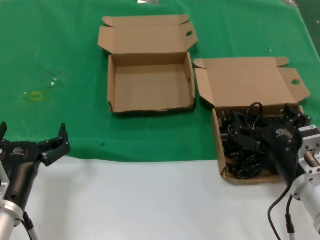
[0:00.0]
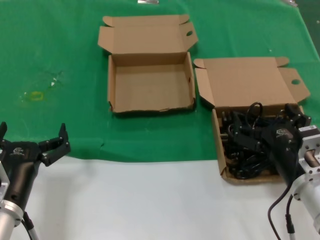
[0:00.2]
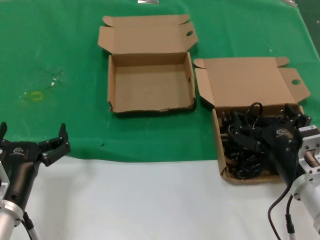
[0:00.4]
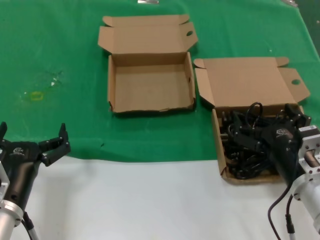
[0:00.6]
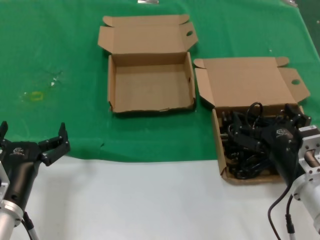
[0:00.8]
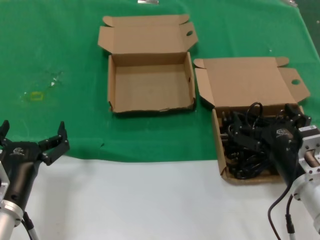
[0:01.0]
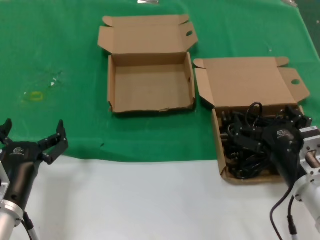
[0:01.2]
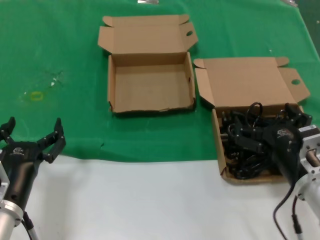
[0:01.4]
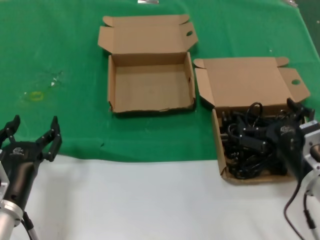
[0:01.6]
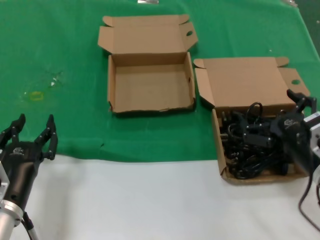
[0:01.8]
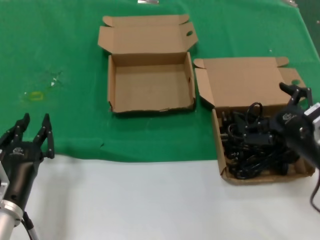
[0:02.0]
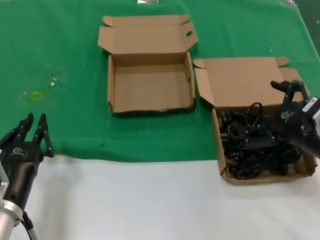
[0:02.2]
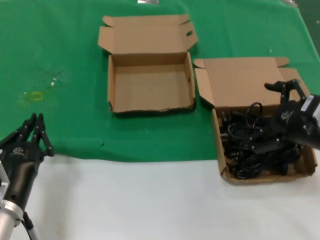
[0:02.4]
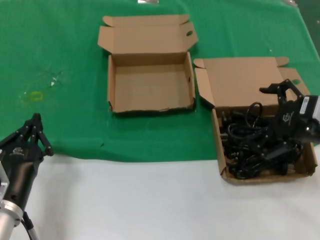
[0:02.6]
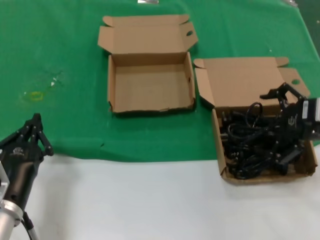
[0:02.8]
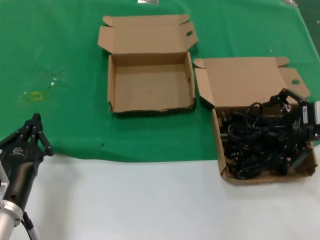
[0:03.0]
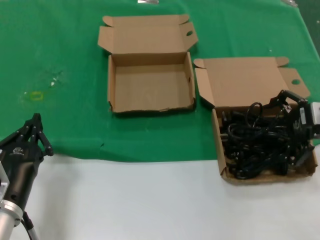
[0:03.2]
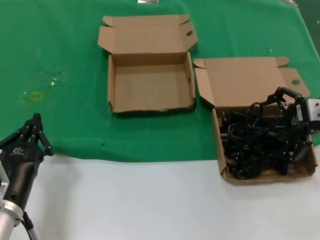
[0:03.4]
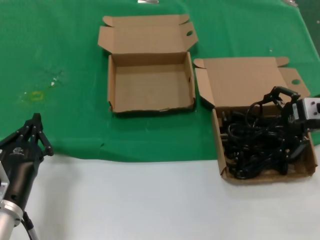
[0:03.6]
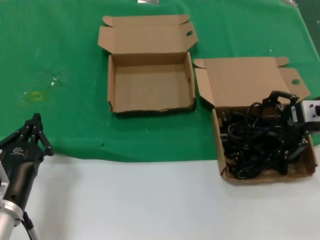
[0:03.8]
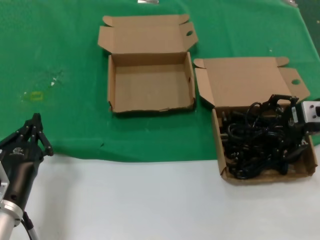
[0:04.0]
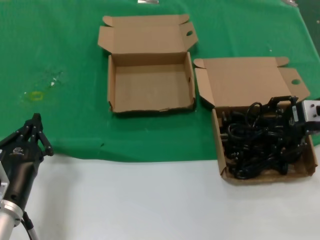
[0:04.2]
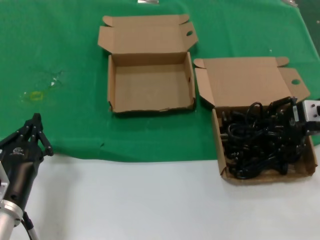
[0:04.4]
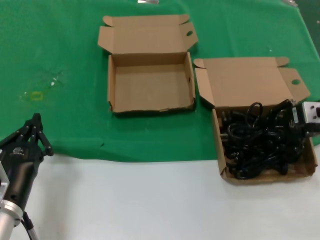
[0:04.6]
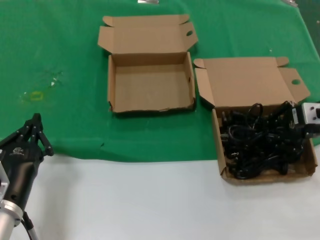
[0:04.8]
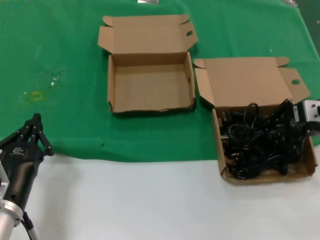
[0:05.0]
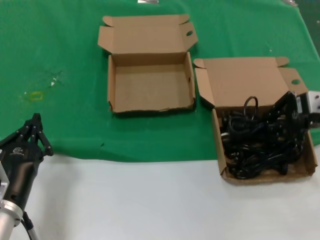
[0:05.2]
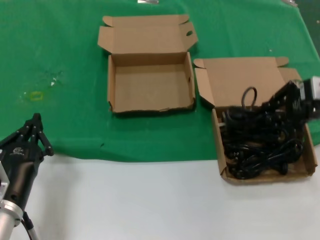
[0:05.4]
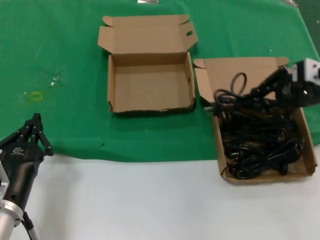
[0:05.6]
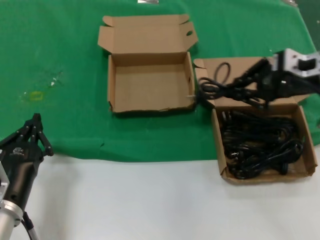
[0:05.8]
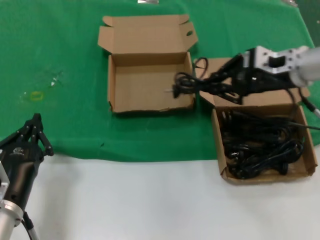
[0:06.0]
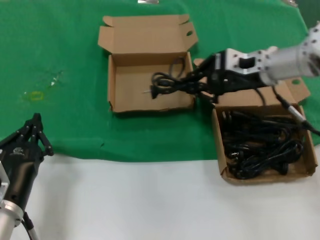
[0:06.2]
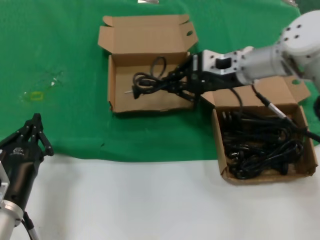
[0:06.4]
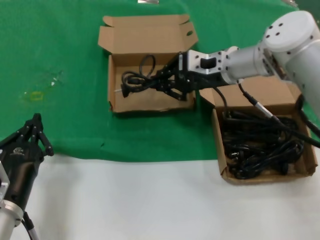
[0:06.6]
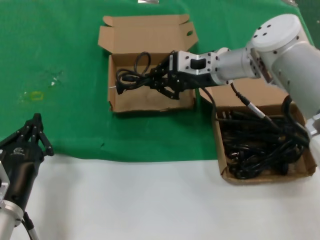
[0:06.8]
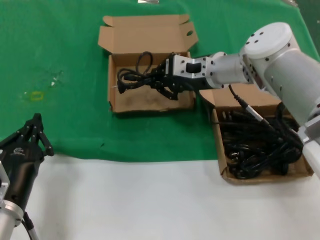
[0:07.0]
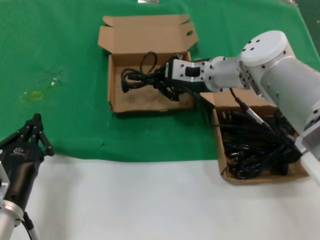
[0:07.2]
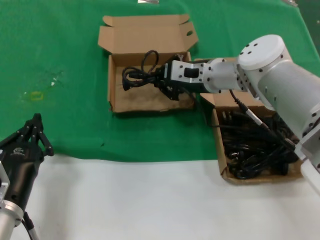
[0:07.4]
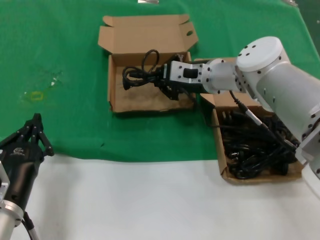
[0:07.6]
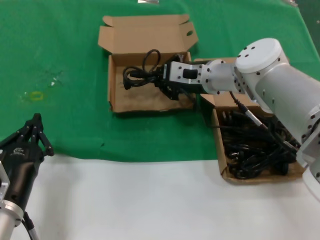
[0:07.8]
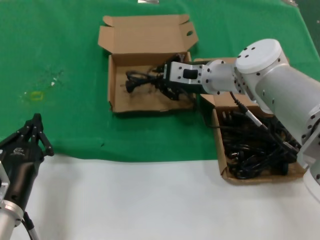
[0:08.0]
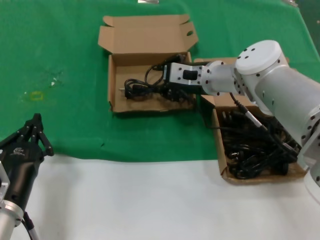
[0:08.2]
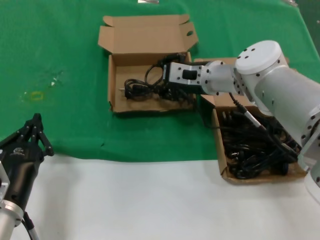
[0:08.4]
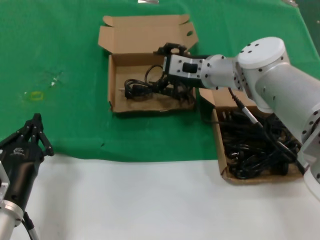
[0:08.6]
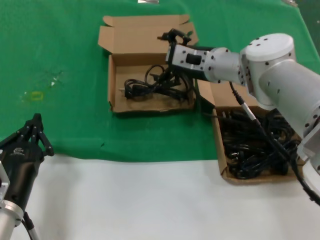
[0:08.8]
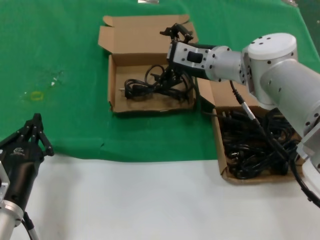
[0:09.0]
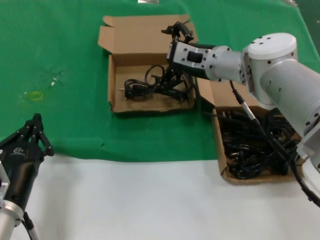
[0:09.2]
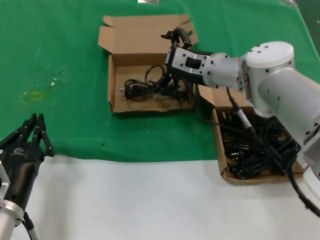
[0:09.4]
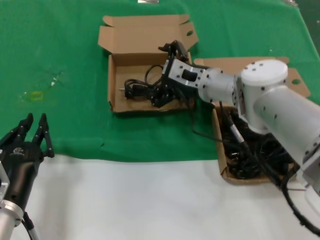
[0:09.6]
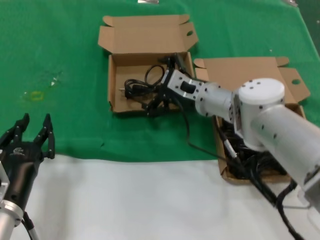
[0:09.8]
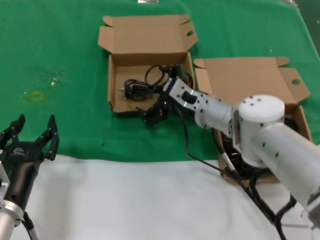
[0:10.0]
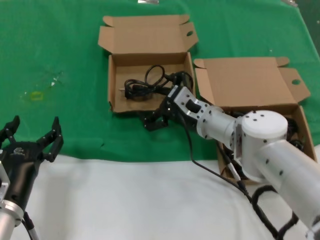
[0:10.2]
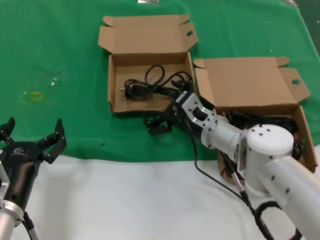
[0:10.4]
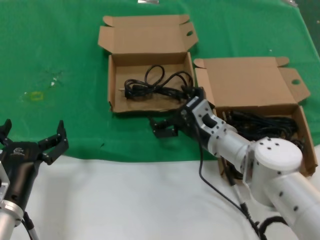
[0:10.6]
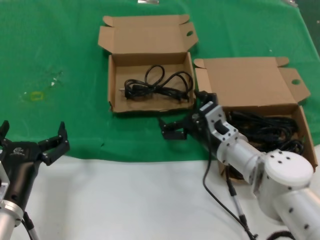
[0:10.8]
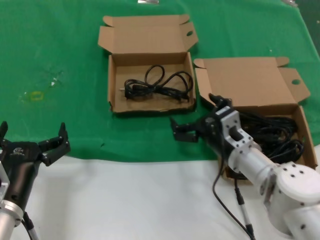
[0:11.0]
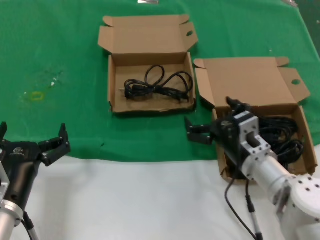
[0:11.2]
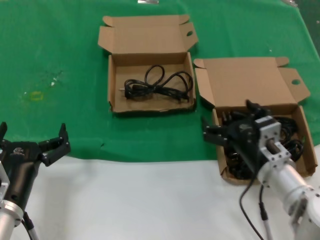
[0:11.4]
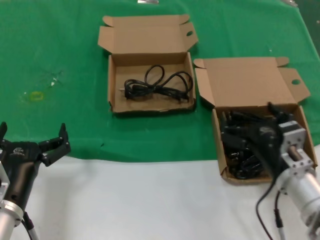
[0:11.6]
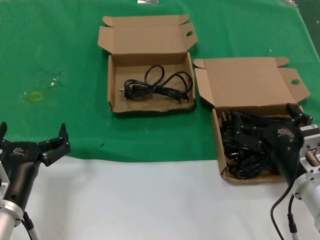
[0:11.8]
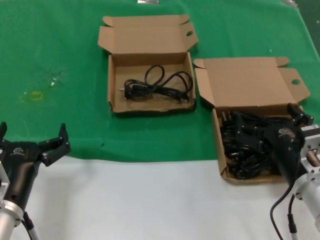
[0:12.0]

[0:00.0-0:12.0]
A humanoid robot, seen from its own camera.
Task of the whole recording: take the parts from the box containing them and put them into an empty box.
Step, 0:00.0 to 0:05.0: Grasp the data cable.
Step, 0:05.2 to 0:08.0: Place the data cable in the another box.
0:00.0 to 0:01.6: The hands move only a little.
0:01.6 to 0:03.0: The right hand is displaced upward, to the right and forward by approximately 20 cm.
0:03.0 to 0:04.4: The hands make only small movements.
0:04.4 to 0:06.0: The right hand heads to the left and upward, covering about 10 cm.
0:06.0 to 0:07.6: The right hand shifts approximately 15 cm to the left and downward.
0:07.6 to 0:09.0: The hands make only small movements.
0:09.0 to 0:10.4: The right hand heads downward and backward, covering some 15 cm.
0:10.4 to 0:12.0: The right hand shifts roughly 20 cm backward and to the right.

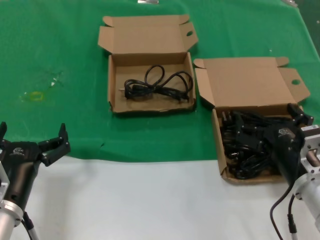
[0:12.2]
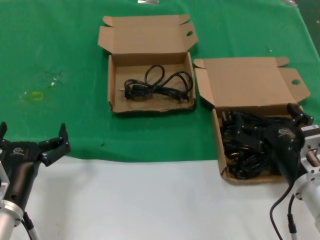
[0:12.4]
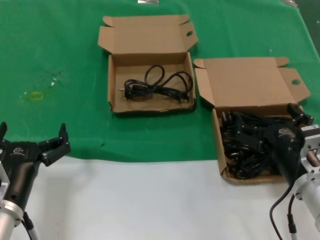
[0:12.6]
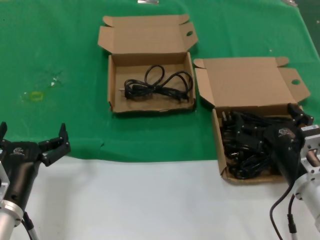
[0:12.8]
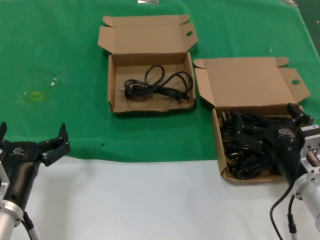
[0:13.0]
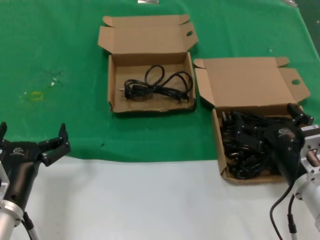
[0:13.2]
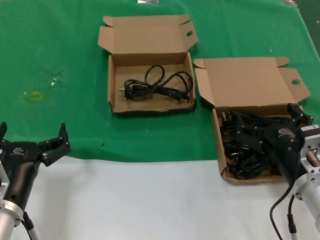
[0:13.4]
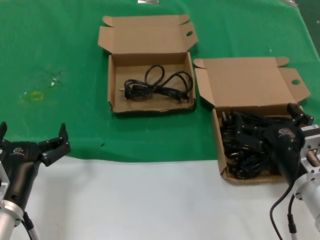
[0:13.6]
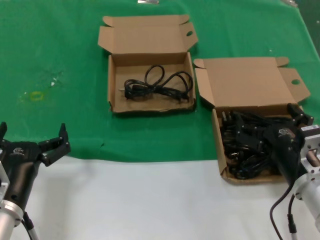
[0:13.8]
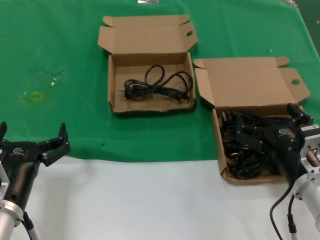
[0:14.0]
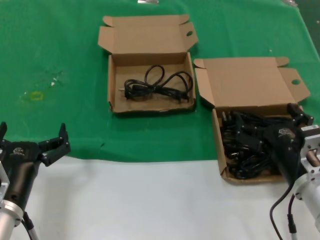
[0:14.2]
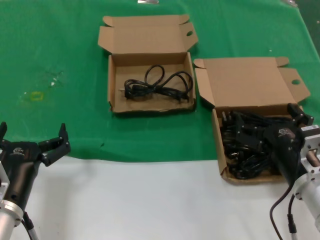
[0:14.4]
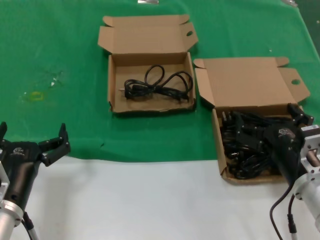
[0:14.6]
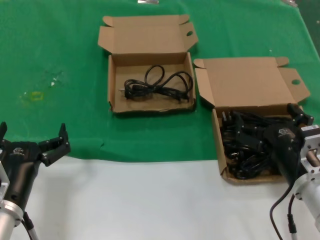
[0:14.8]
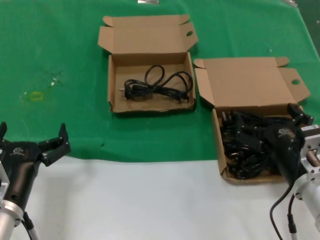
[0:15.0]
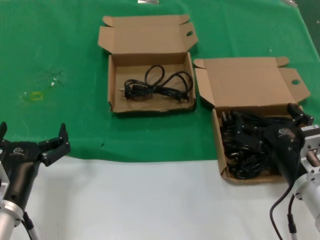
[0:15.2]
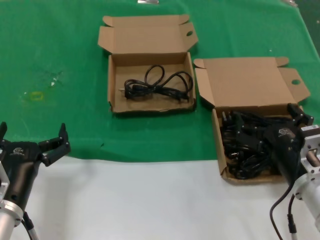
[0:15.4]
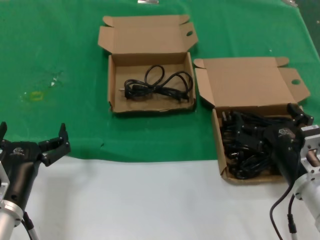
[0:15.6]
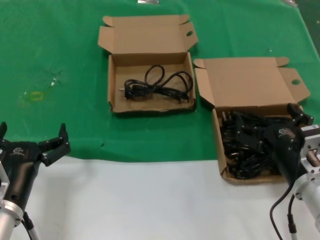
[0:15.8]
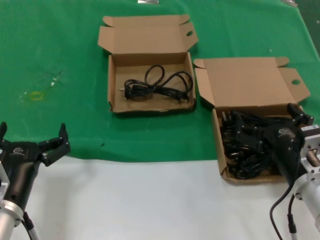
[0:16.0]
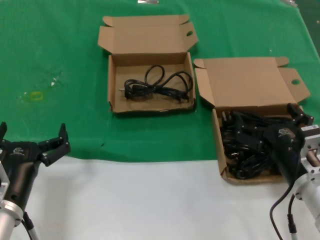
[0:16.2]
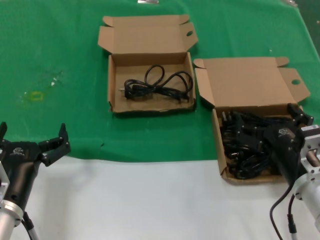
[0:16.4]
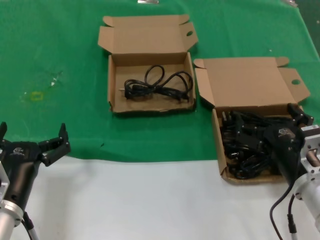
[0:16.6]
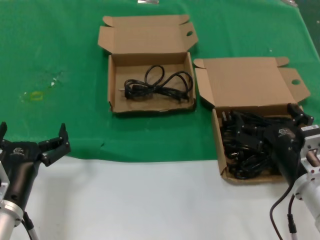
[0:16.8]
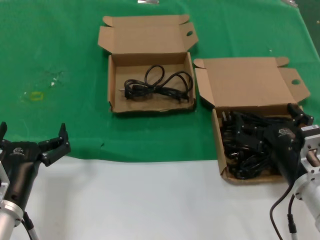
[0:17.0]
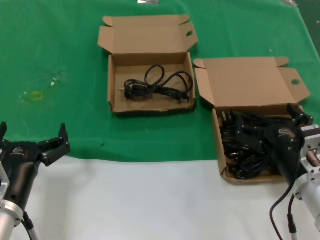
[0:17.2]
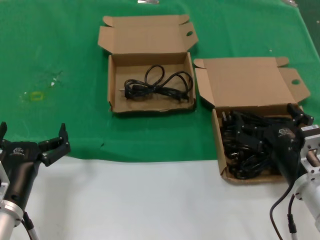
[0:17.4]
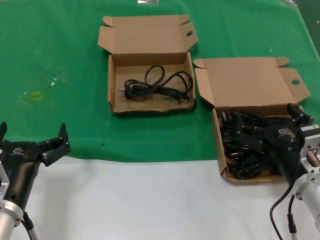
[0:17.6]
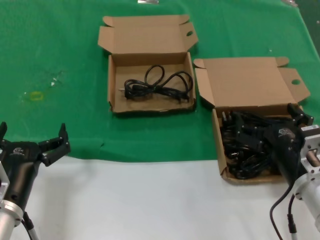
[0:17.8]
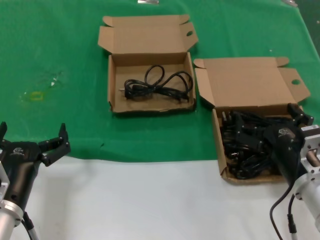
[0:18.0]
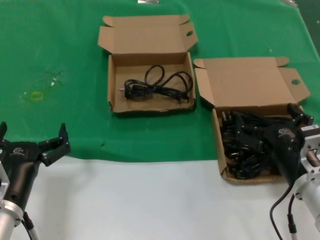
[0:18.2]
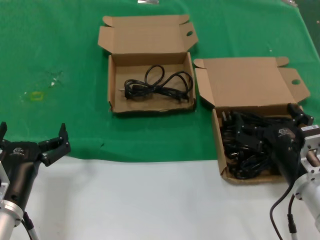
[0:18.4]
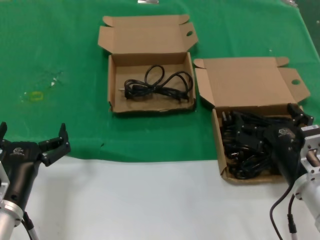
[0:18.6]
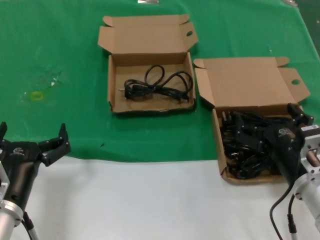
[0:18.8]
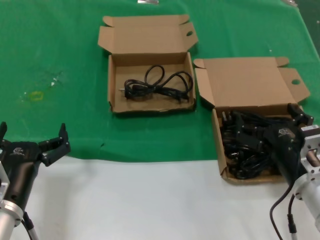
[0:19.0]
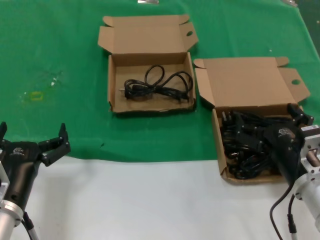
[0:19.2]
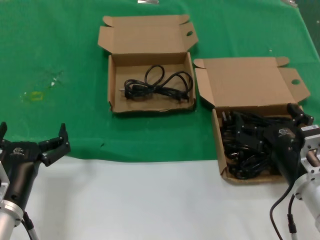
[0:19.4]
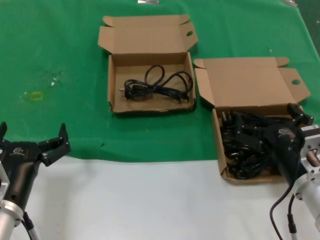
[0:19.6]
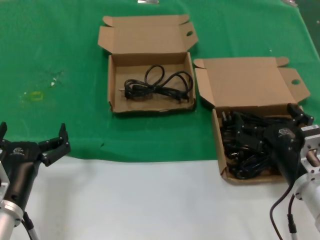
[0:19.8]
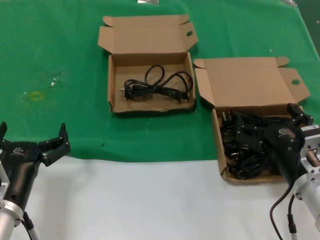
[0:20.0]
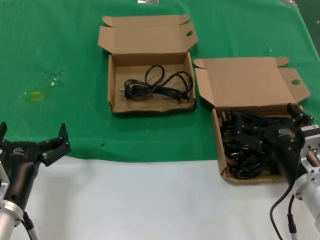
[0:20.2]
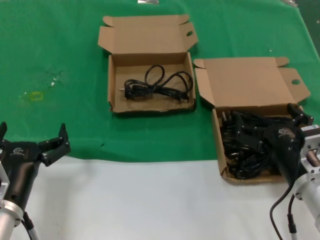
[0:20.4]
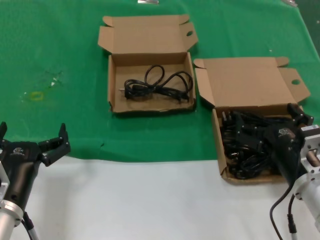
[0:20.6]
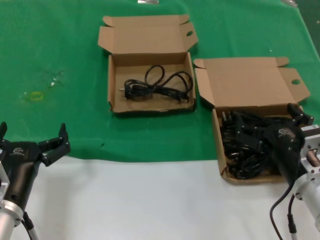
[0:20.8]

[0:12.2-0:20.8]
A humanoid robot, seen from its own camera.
Task of the whole recording: take the parts from the box containing them and put them into an empty box.
0:12.2 to 0:20.8: Neither hand changes place.

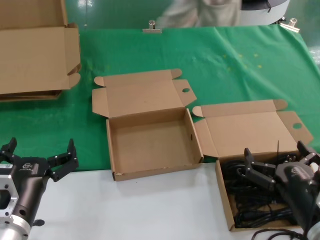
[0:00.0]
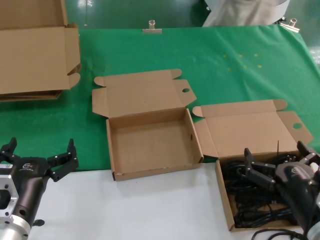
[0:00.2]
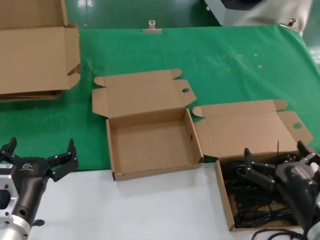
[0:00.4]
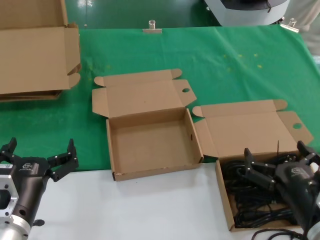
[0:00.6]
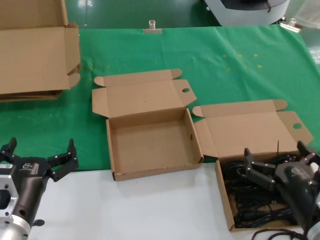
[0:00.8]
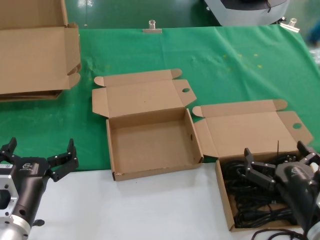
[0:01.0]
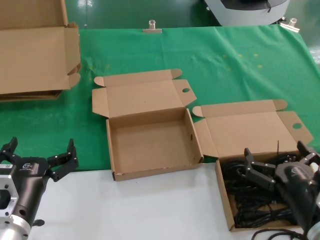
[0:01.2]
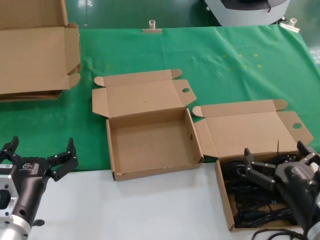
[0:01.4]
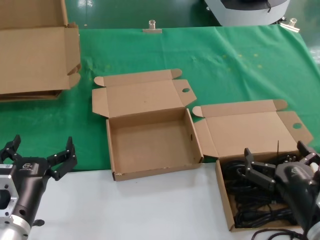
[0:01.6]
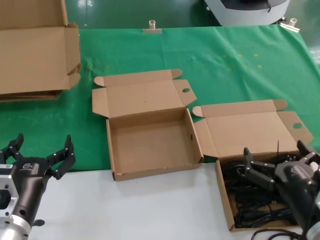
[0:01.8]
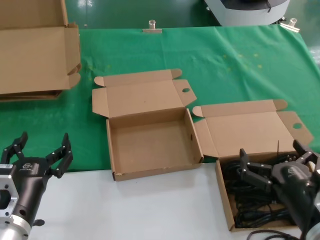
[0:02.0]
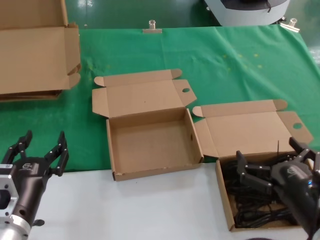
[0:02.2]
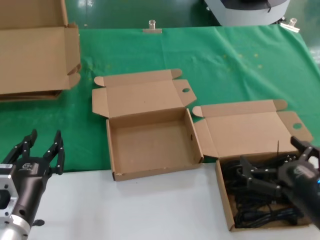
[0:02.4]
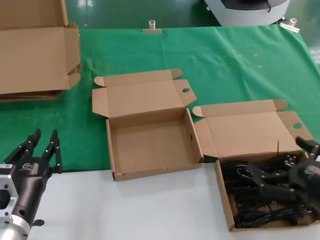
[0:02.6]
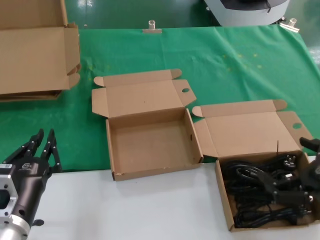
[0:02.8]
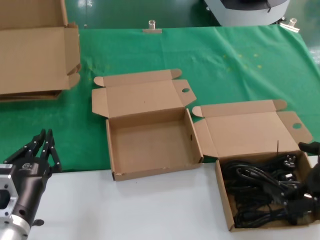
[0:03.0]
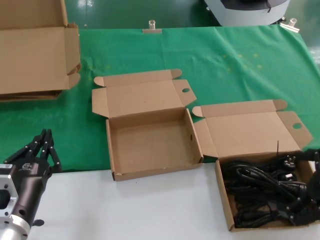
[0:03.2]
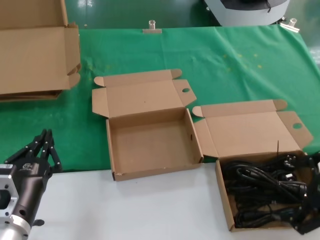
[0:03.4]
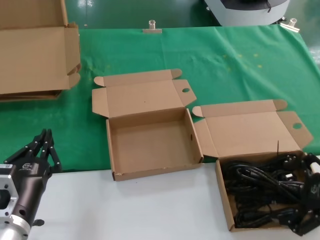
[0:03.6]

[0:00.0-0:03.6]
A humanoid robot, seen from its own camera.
Task of the whole recording: take the parts from the box containing them and put them into an empty box.
0:00.0 to 0:01.8: Neither hand changes place.
0:01.8 to 0:03.6: The right hand shifts some 15 cm upward and to the right.
